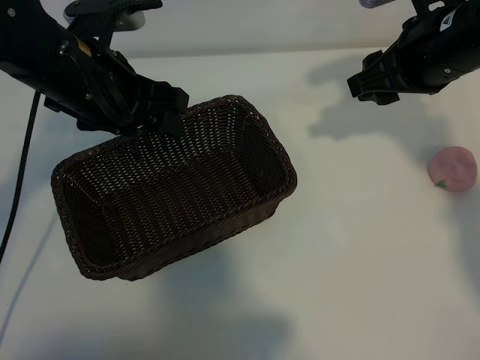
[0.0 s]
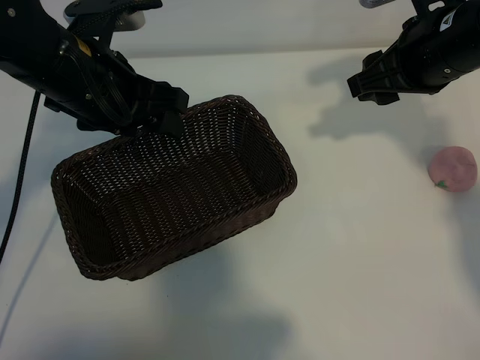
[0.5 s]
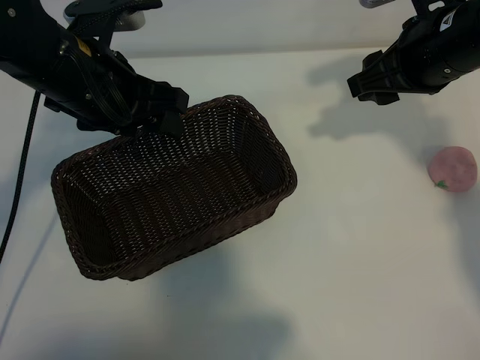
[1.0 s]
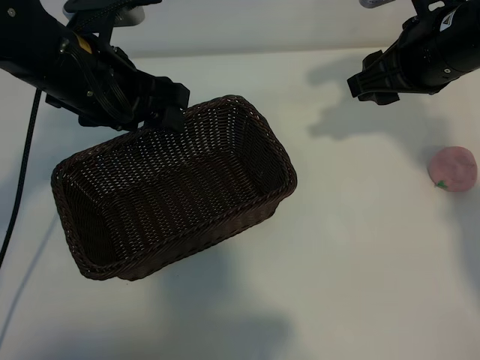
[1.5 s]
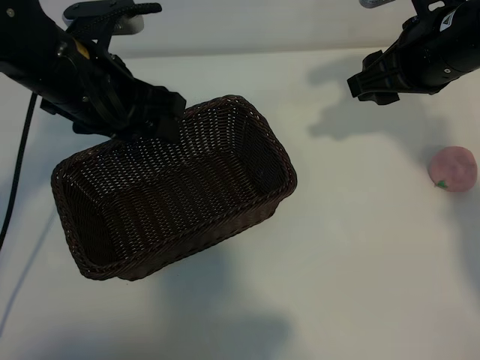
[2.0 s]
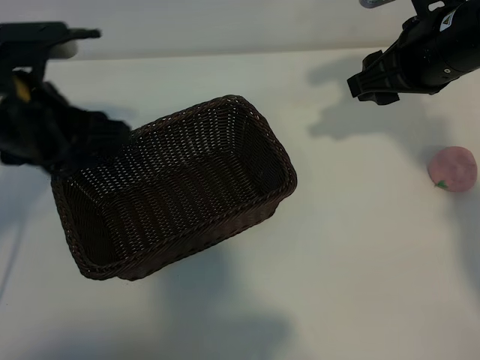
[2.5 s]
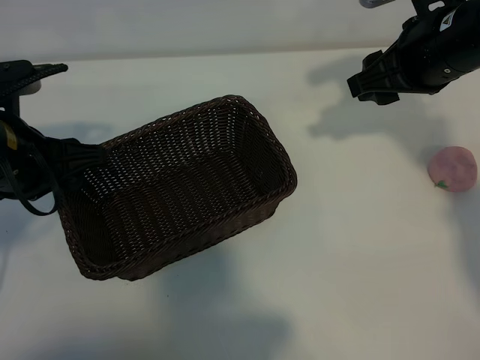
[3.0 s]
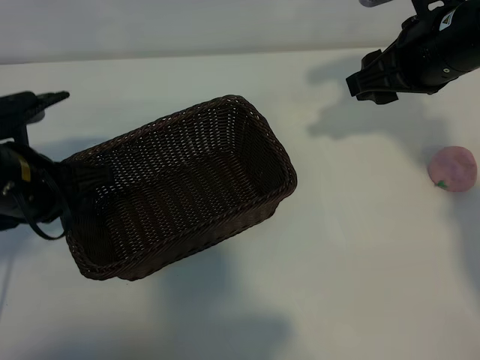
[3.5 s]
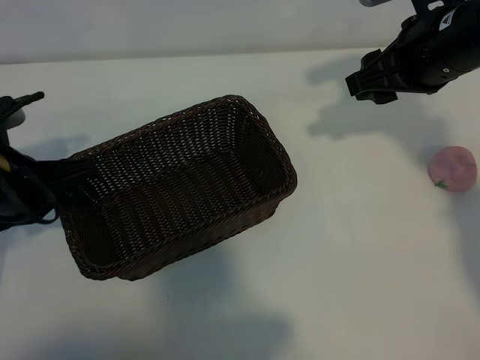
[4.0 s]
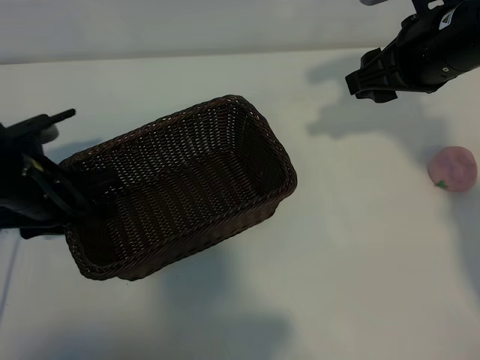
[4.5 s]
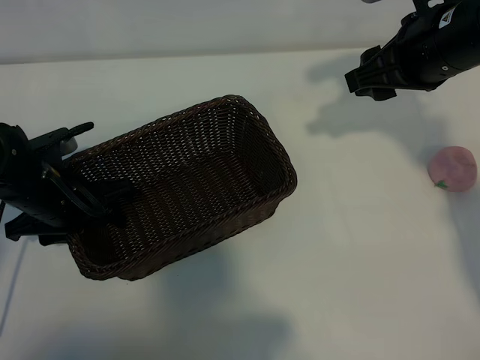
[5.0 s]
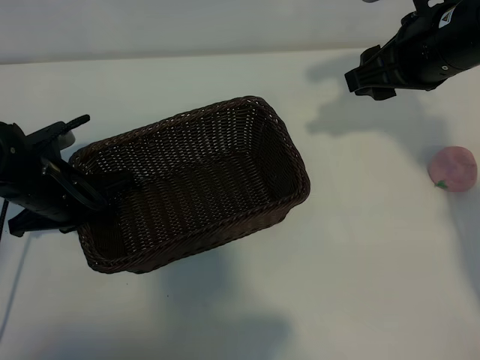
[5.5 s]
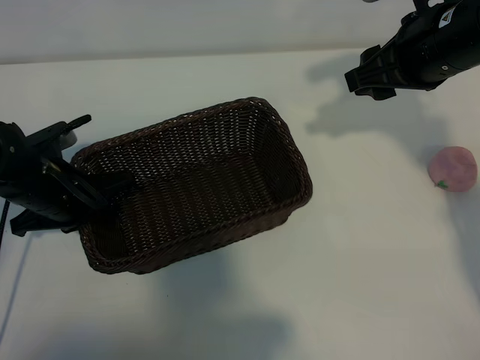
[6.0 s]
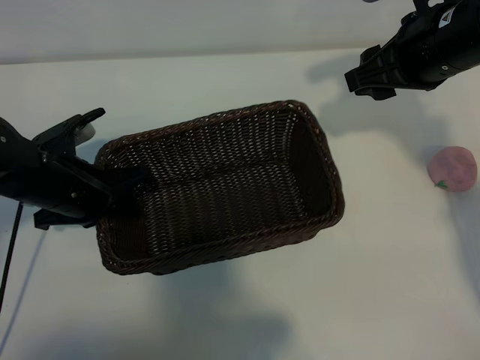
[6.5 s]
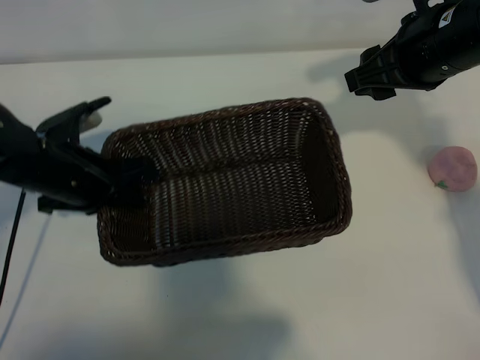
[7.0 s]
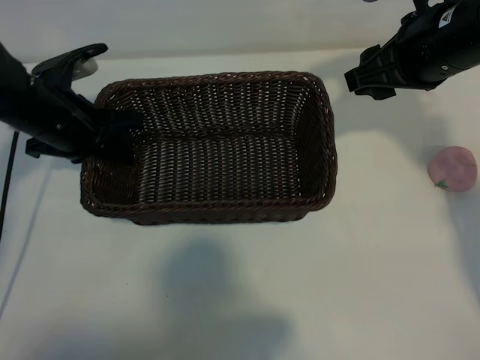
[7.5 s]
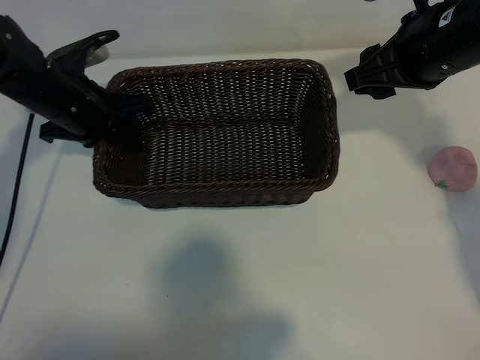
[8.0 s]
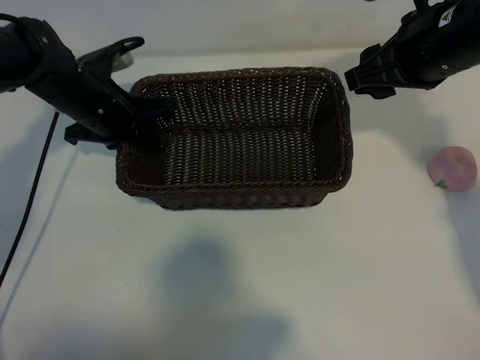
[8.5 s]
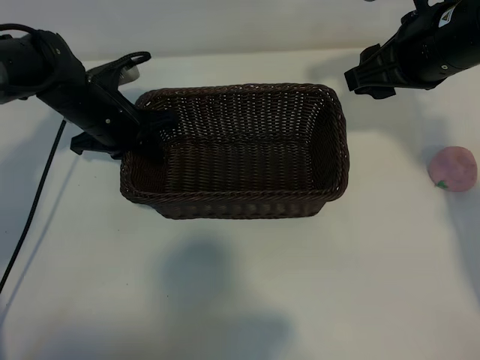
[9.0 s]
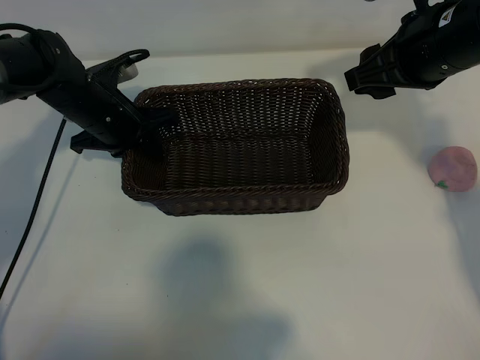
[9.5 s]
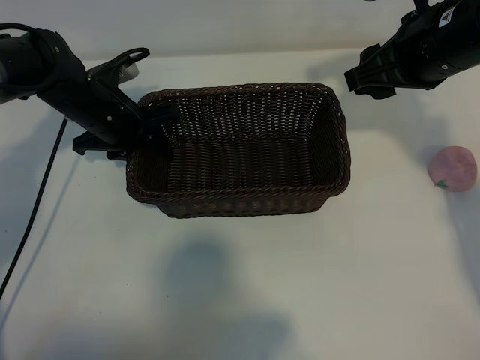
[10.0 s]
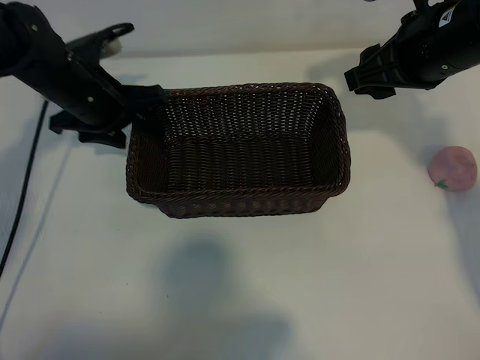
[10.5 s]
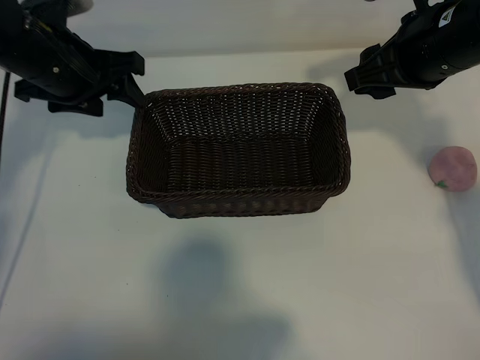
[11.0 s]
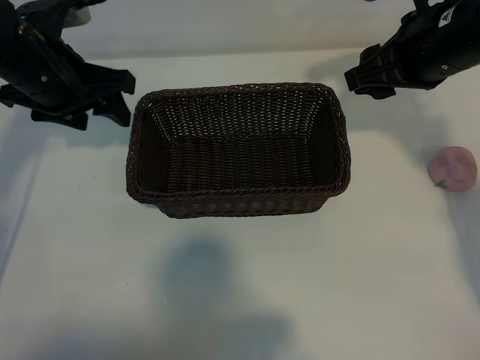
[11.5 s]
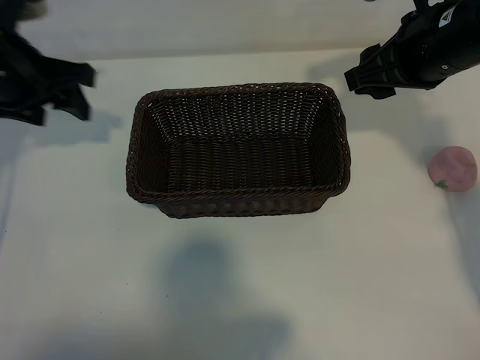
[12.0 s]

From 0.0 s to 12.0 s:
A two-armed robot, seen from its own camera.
Task of the whole recording: pick up the peach and put it into the basket.
Step, from 2.0 s to 5.5 s: Grasp the basket with left gripper.
Step, from 6.0 s to 10.0 s: Place the basket in the center of view with left gripper.

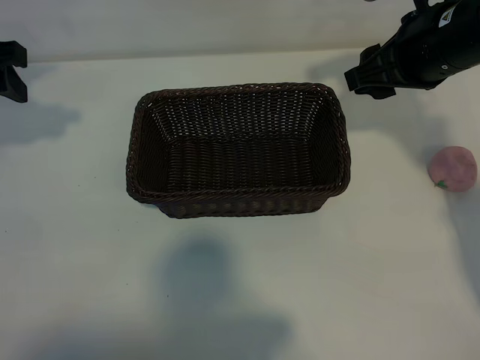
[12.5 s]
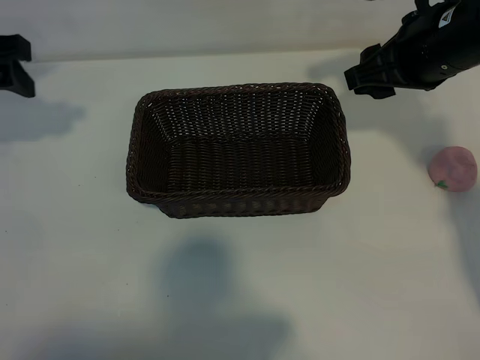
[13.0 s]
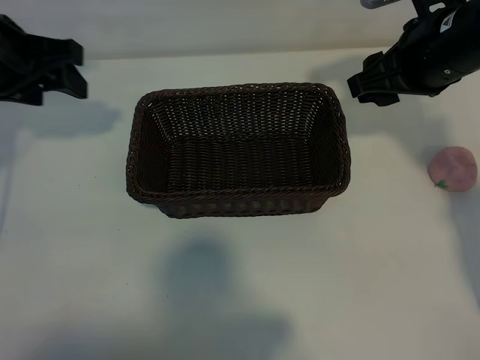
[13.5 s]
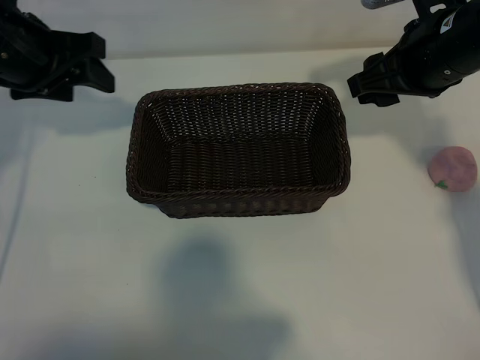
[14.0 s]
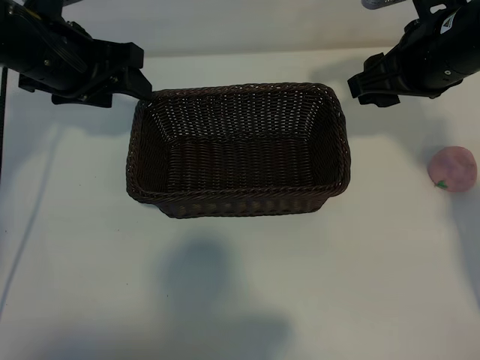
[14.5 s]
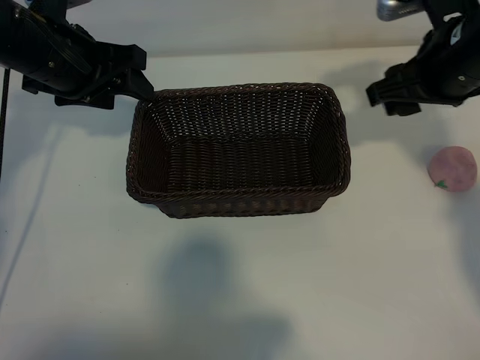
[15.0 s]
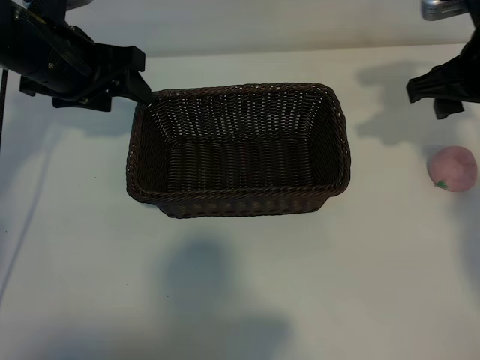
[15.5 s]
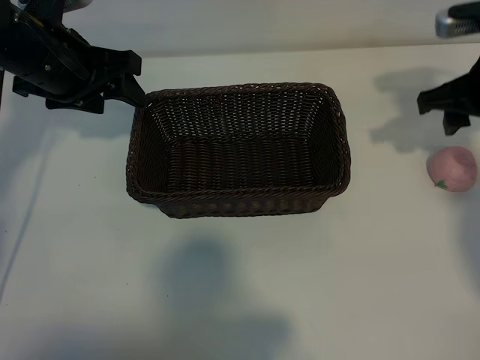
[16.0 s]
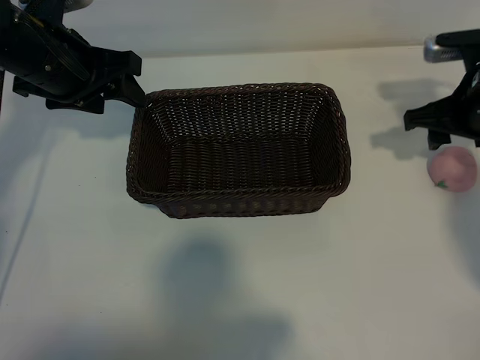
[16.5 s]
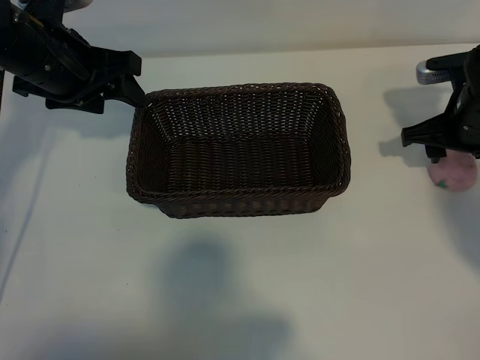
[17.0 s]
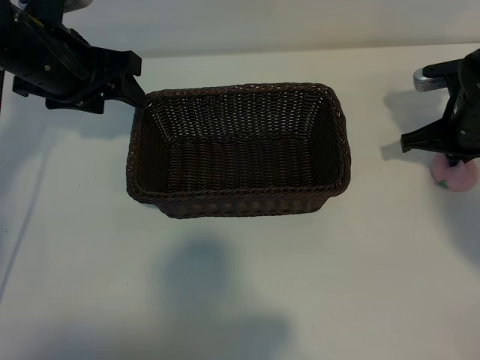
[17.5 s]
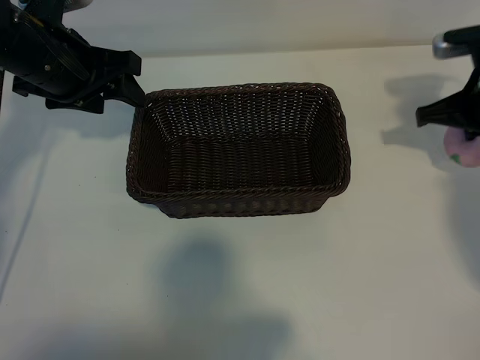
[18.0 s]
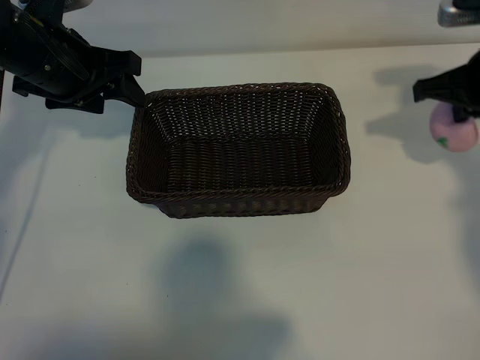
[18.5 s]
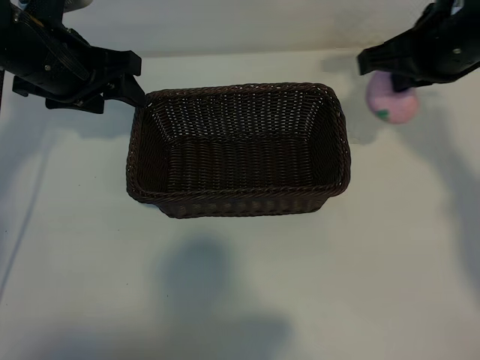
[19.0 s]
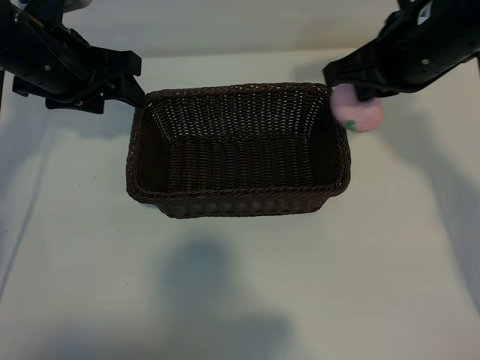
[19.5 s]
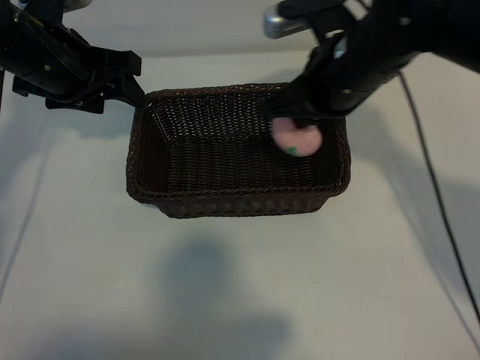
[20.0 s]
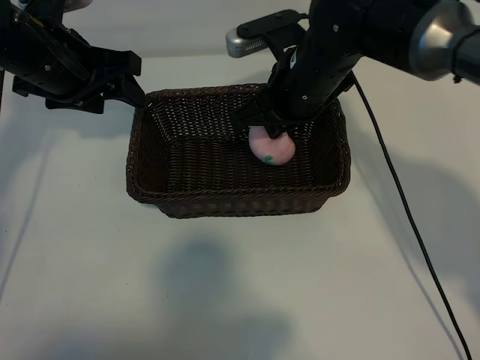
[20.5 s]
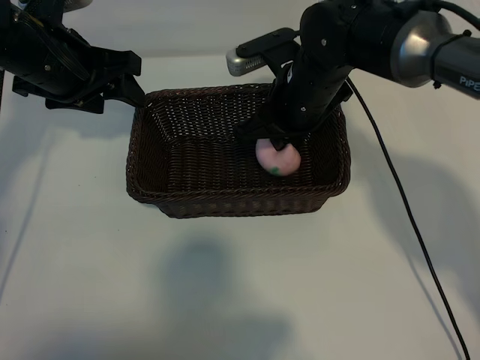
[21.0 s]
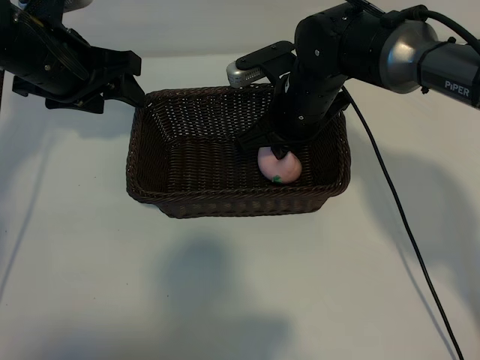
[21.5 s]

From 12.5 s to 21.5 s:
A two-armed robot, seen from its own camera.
Task of the whole recording: pick up the peach and put it into the basket.
Step, from 12.5 s to 17.5 s: Grasp the peach with right gripper.

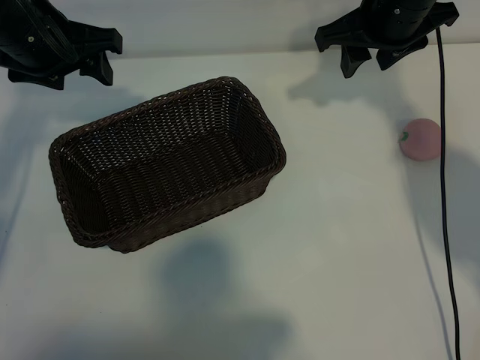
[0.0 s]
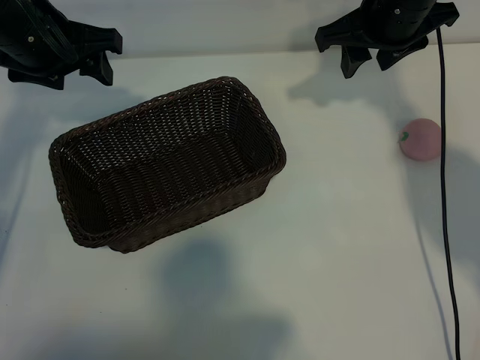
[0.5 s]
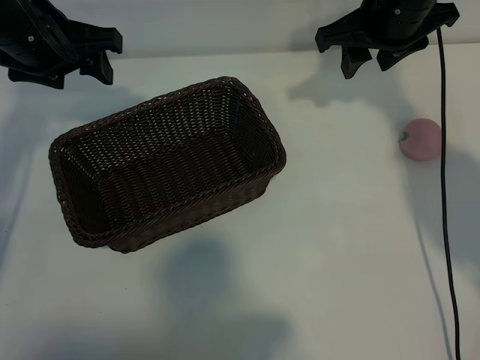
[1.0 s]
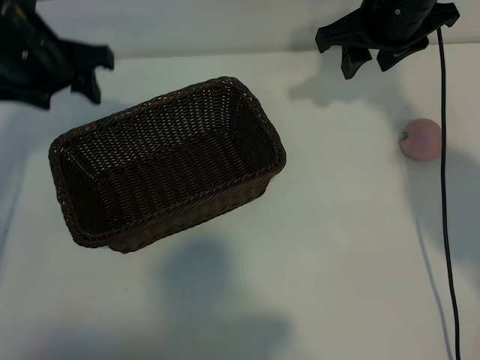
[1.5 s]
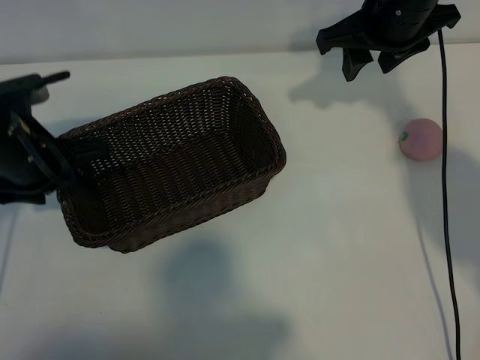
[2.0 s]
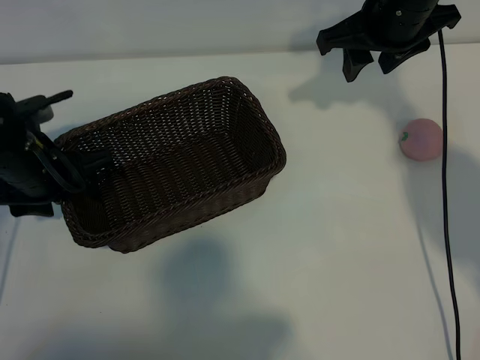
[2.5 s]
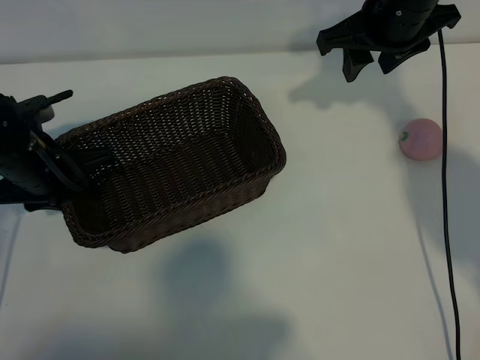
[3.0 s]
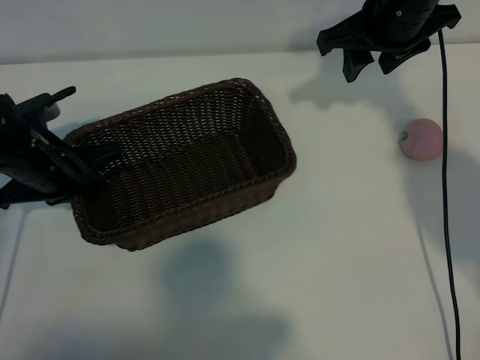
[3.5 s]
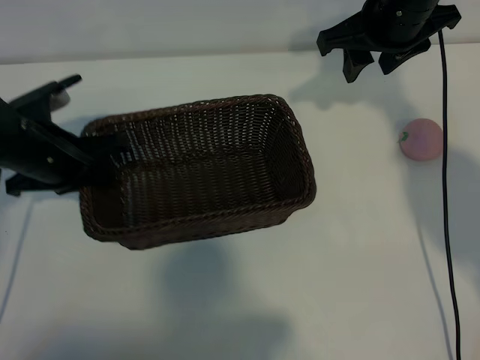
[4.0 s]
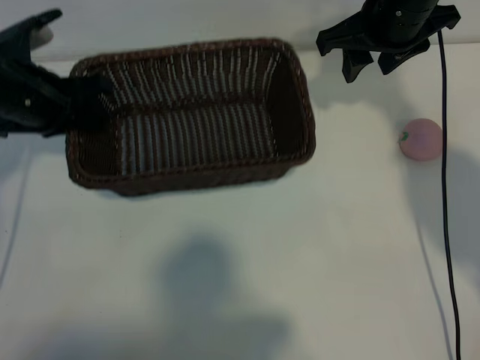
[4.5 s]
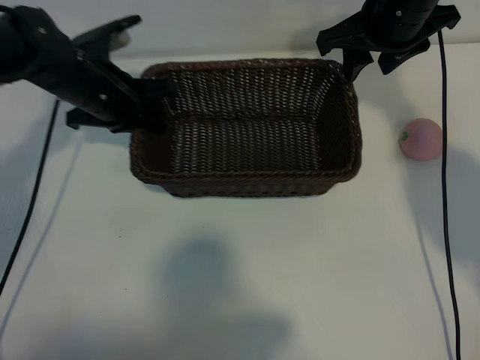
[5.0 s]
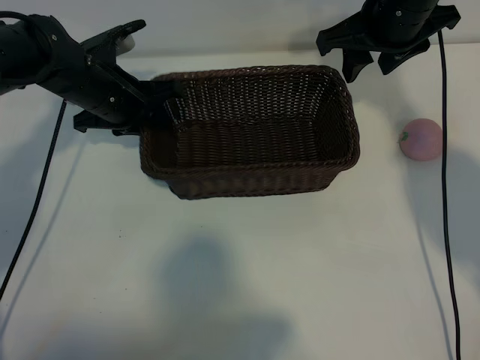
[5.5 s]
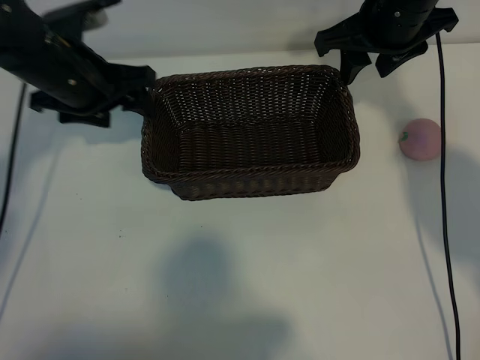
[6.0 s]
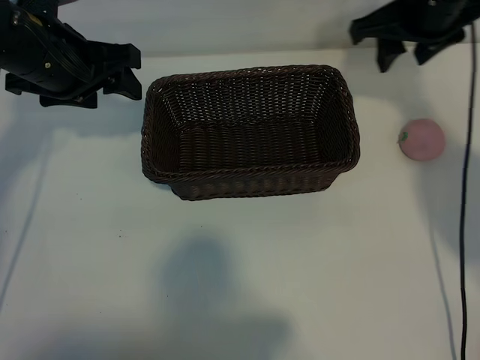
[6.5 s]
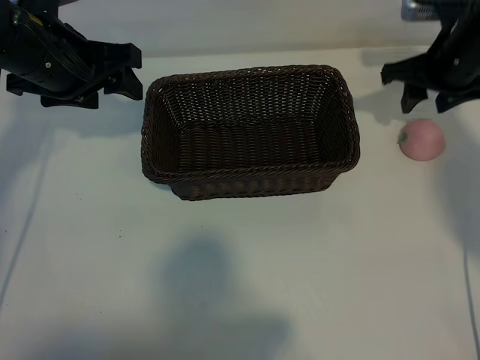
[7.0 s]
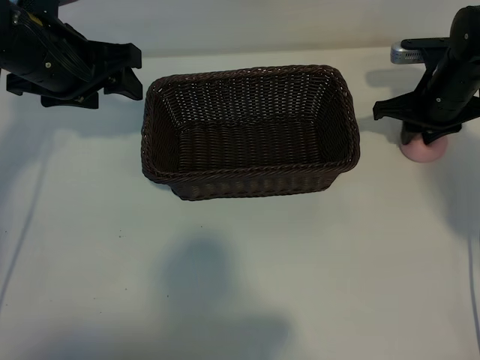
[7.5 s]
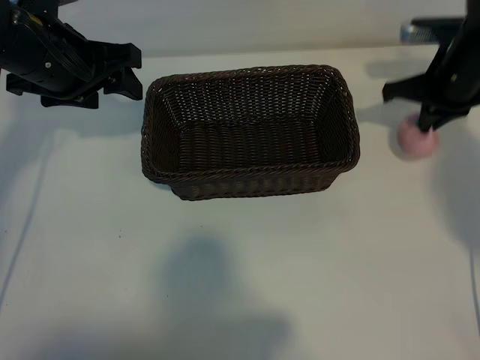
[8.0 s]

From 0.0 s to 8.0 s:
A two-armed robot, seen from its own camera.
Task of the whole recording: pick up the peach and put it into the basket.
Step, from 1.5 s to 3.0 s: Grasp the basket with left gripper.
Step, from 3.5 s to 5.5 s: Place the basket in the center of view with left gripper.
Step, from 6.0 s to 7.5 s: Grasp the peach with right gripper.
